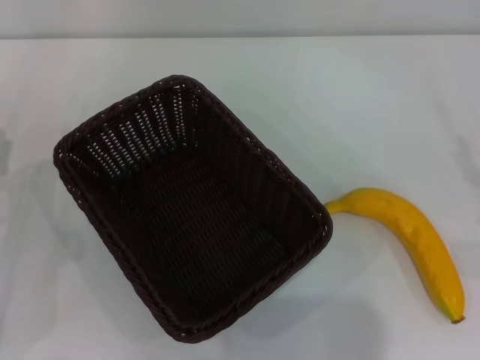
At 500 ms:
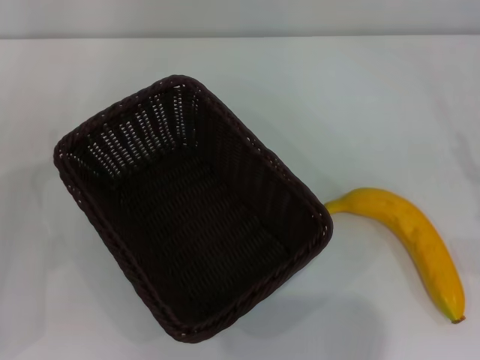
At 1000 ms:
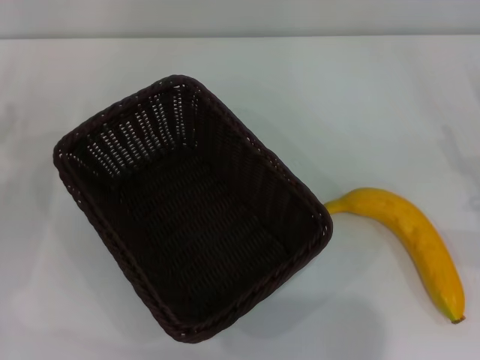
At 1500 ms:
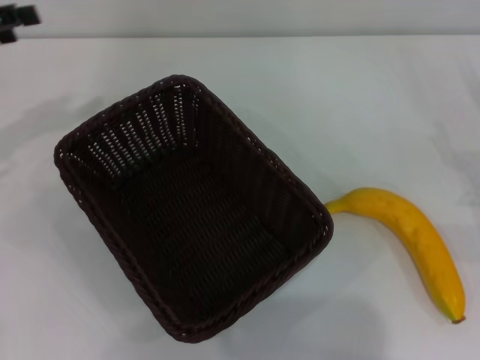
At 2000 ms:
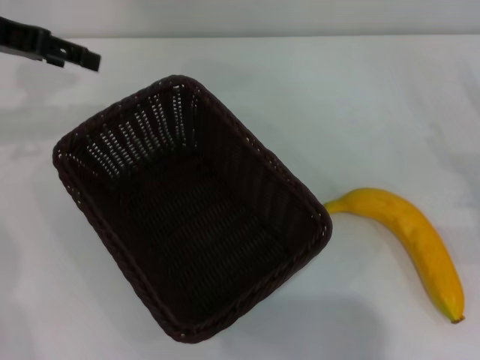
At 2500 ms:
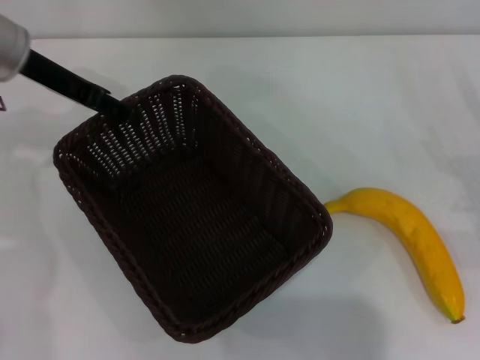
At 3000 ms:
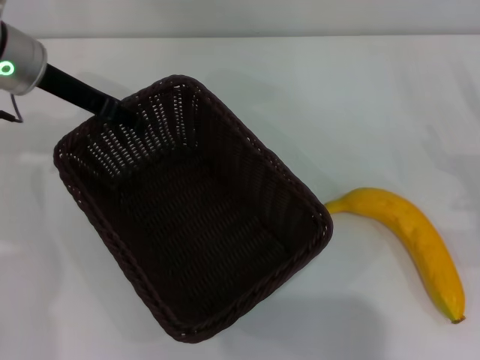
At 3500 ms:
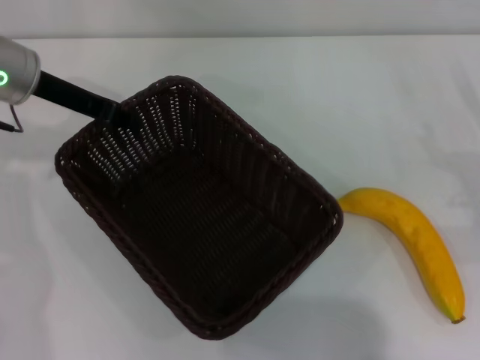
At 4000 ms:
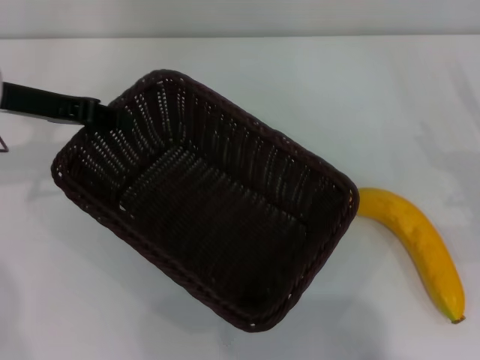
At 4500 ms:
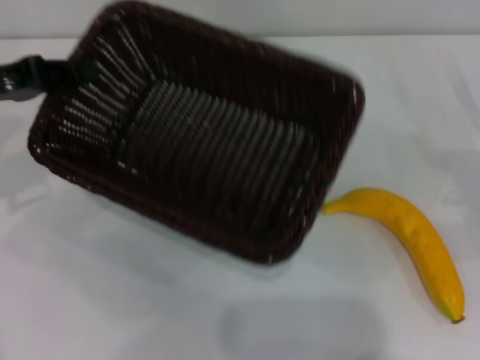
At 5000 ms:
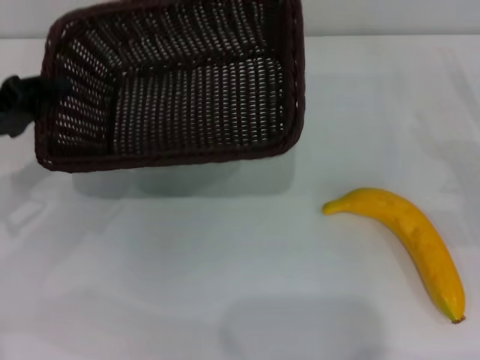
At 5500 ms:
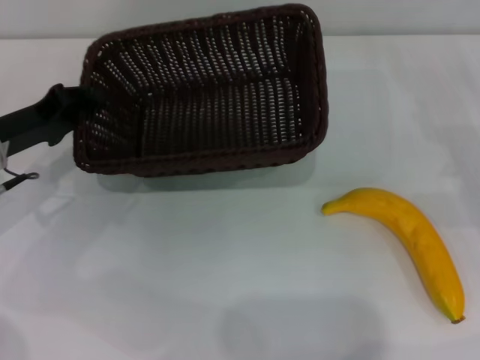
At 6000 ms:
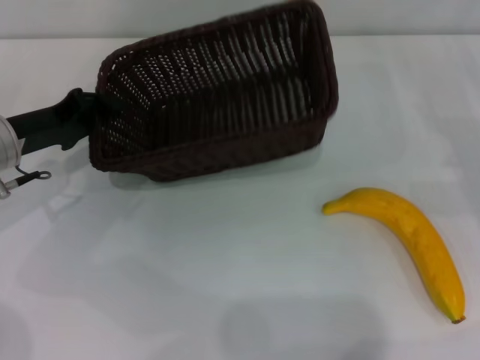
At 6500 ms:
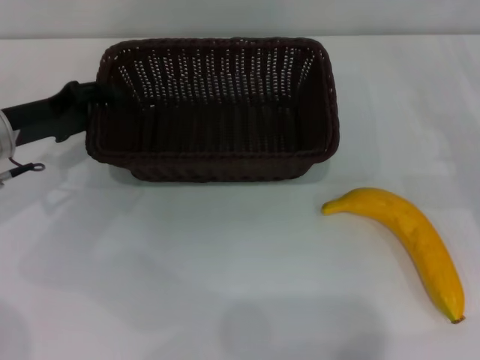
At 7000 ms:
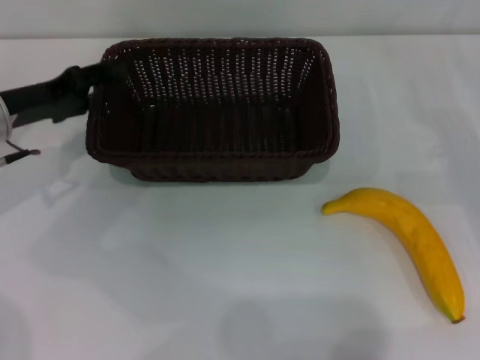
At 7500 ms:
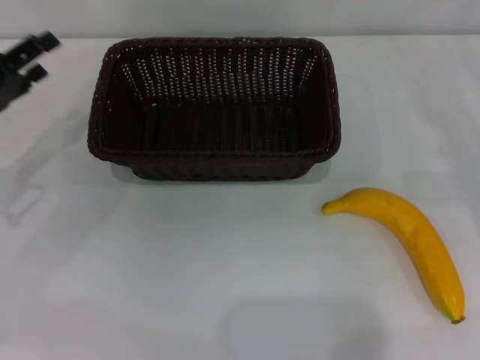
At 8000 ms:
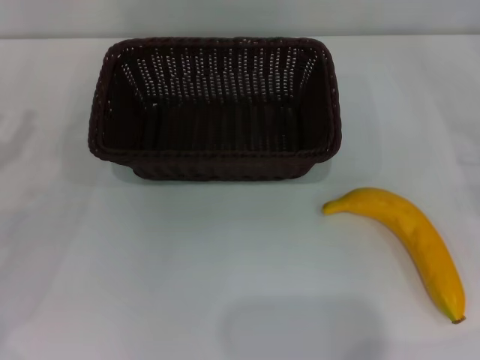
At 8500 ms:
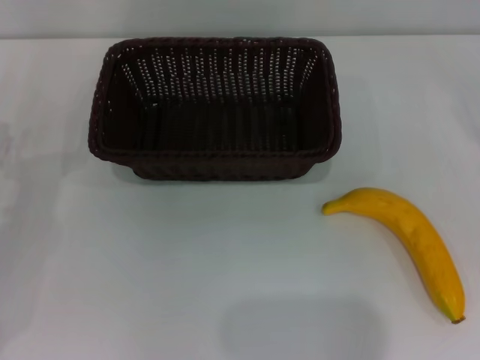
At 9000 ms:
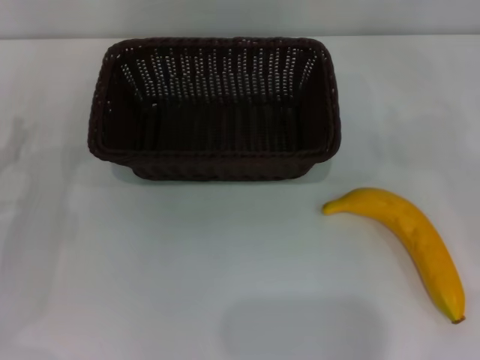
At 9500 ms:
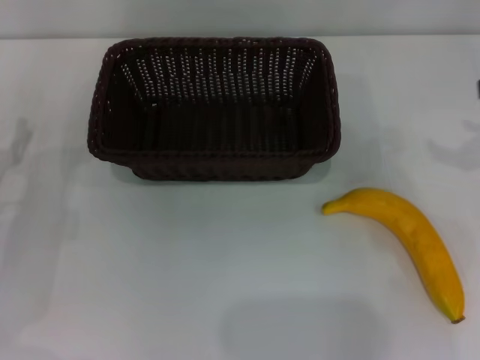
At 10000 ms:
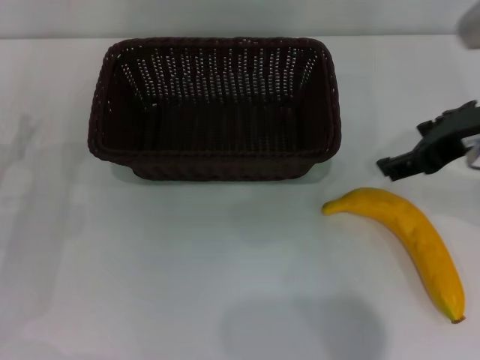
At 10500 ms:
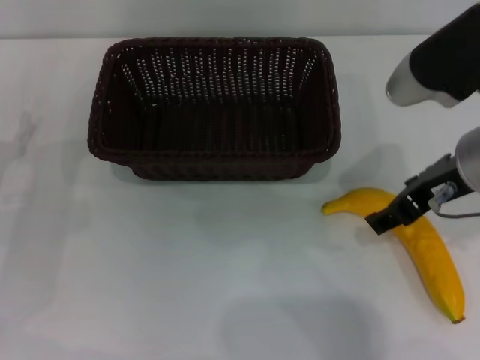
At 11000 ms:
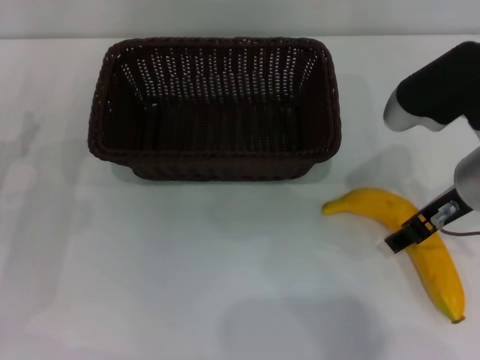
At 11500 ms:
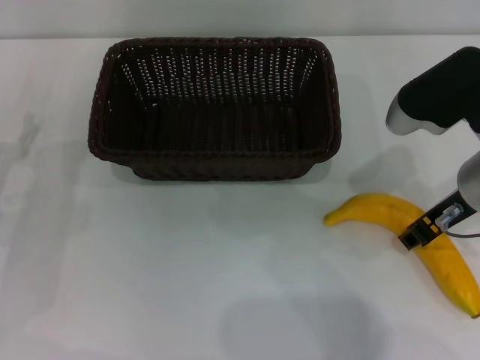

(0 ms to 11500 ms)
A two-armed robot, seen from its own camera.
Step, 0 ms - 4000 ms: Pick up the dark basket with the left gripper.
Step, 4500 ms - 7000 ms: Place the dark basket in the center of view with the left gripper.
0 ms - 2000 ms: The left gripper shifts approximately 25 cm upward and forward.
2000 ms - 4000 ms: The left gripper is displaced downward by approximately 10 cm, and closes its fingers.
4000 ms - 6000 ms: The right gripper shifts by approximately 5 cm. Meanwhile the left gripper goes approximately 10 cm downward.
6000 ms - 7500 ms: The left gripper changes place by about 5 cm, and opens.
7500 ms - 9500 ms: The left gripper moves downward, roughly 5 cm.
9500 ms - 11500 ms: The right gripper moves to the left and downward, roughly 15 cm, and closes.

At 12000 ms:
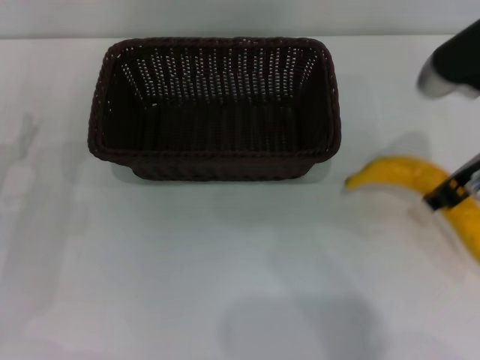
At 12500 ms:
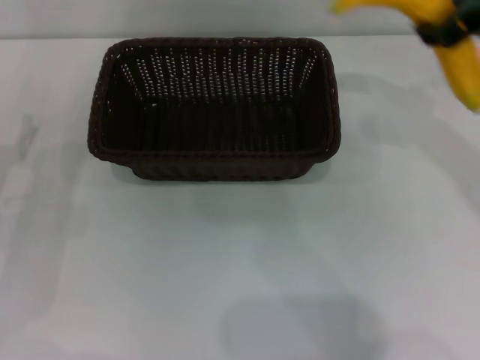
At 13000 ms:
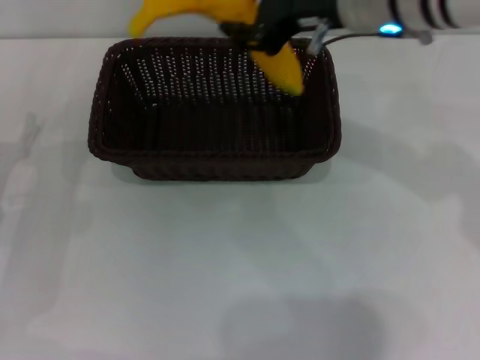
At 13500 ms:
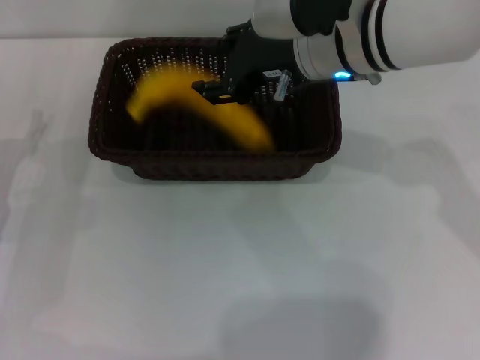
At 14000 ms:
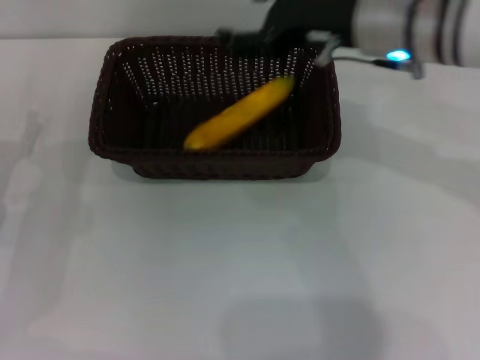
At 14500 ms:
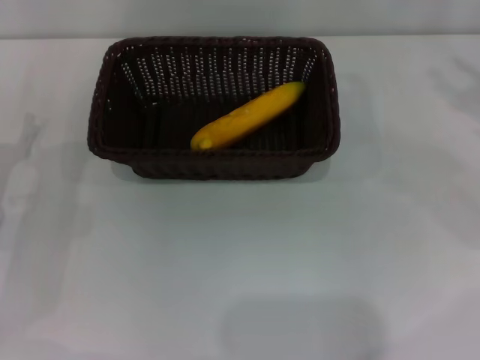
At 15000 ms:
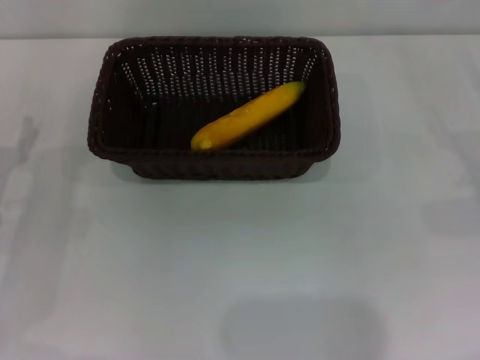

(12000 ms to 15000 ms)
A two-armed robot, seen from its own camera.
Step, 12500 ms - 13500 ms: Place the banana into the dark basket with the right gripper.
12000 ms - 13500 ms: The right gripper goes about 15 cm to the left and forward.
13500 ms - 15000 ms: The right gripper shifts some 35 cm to the right and downward, and opens its fingers.

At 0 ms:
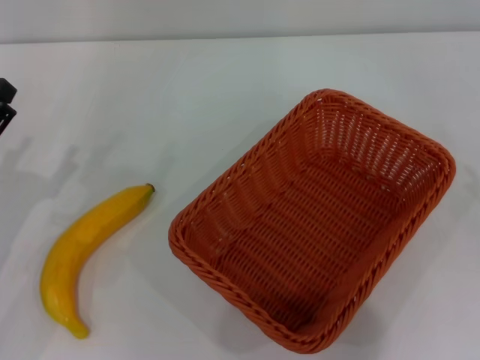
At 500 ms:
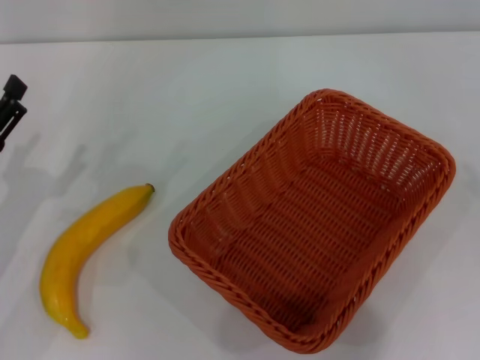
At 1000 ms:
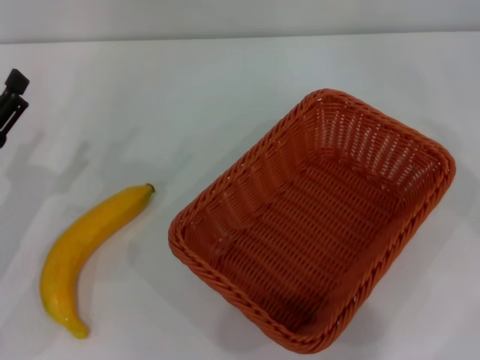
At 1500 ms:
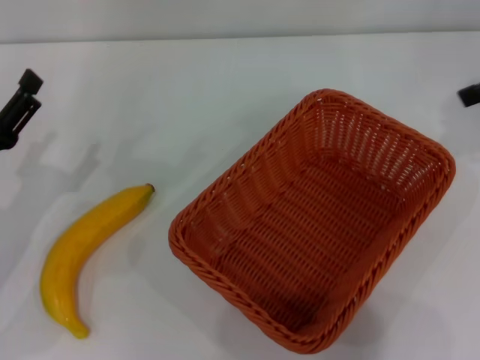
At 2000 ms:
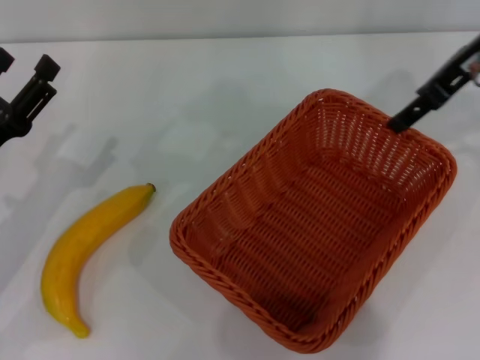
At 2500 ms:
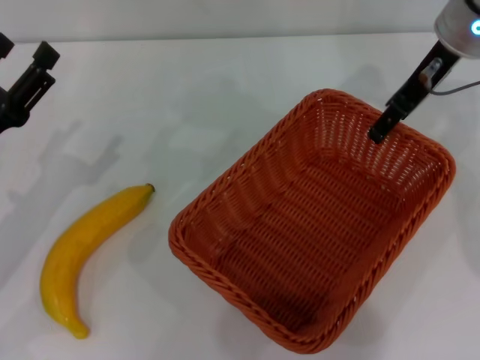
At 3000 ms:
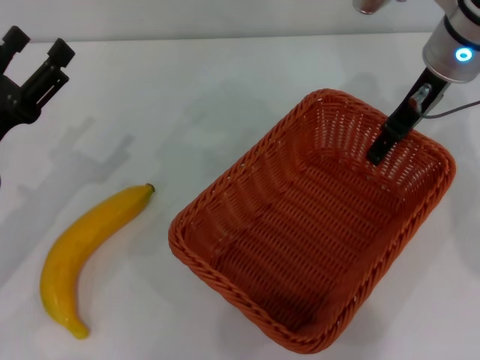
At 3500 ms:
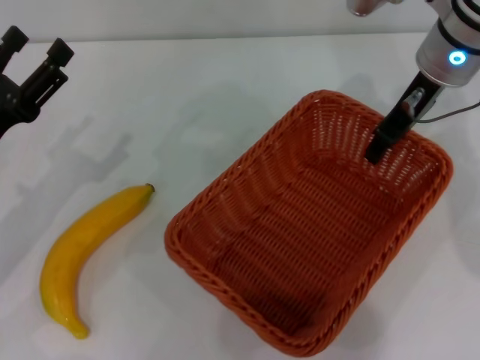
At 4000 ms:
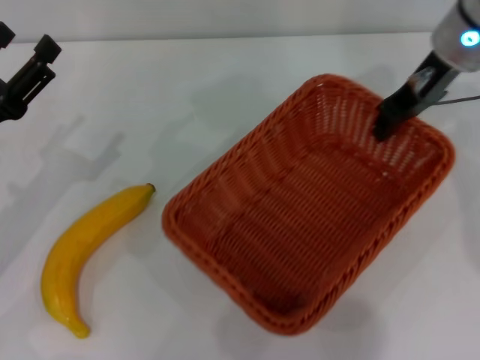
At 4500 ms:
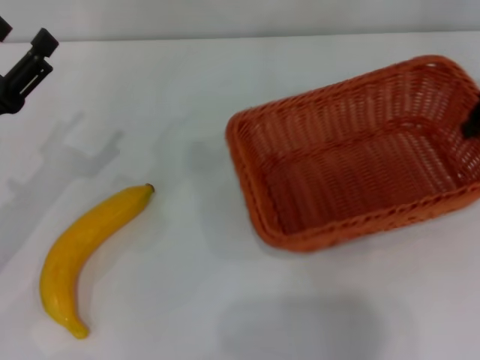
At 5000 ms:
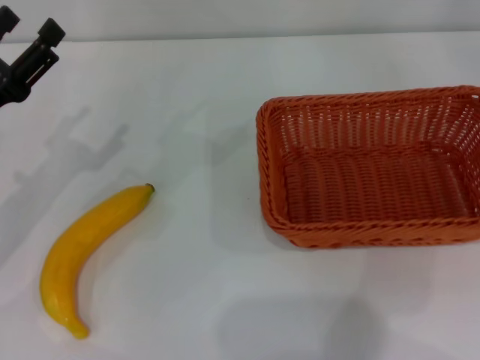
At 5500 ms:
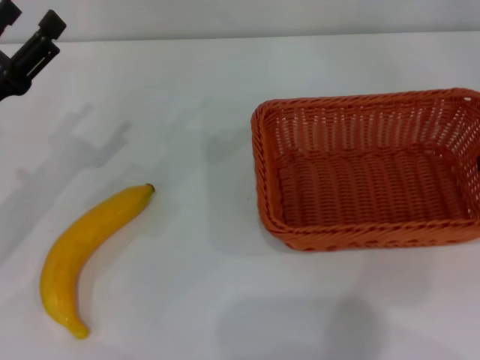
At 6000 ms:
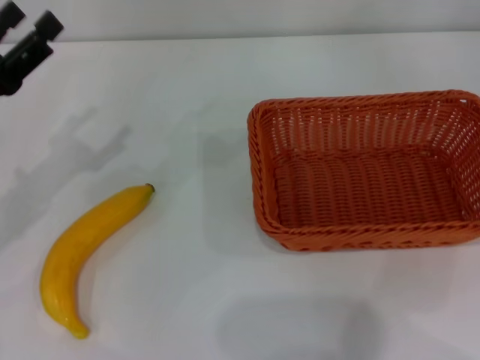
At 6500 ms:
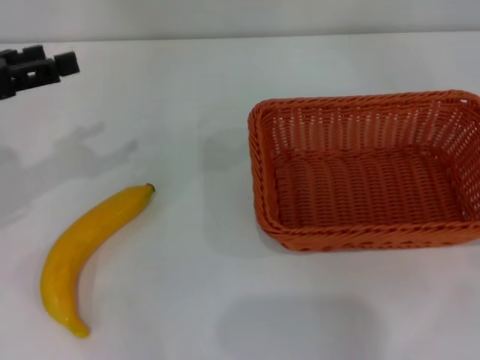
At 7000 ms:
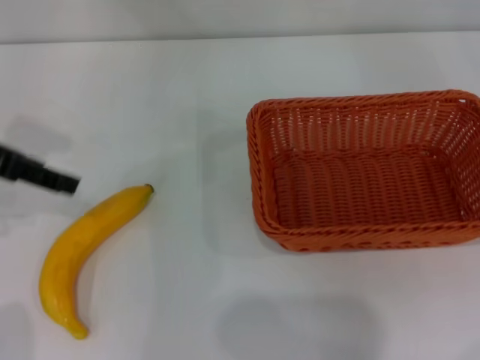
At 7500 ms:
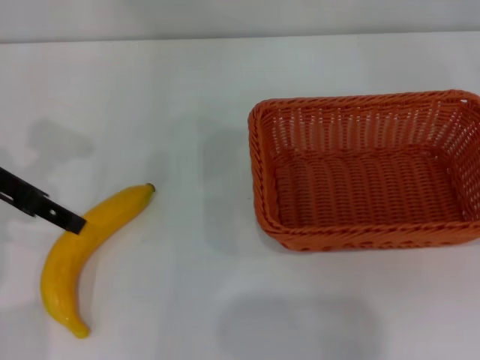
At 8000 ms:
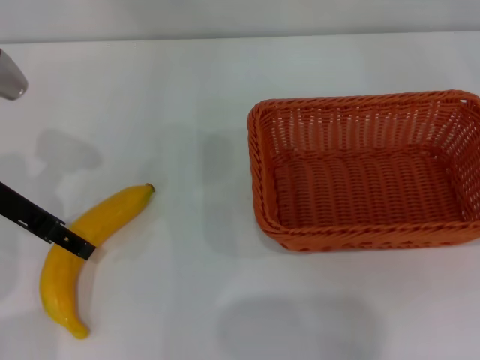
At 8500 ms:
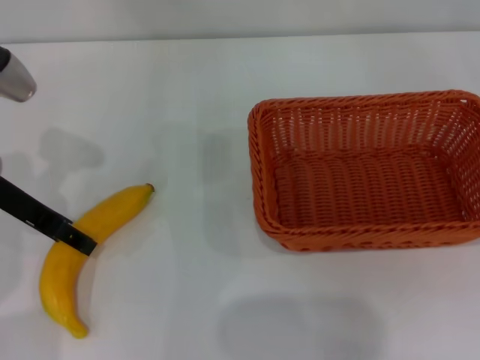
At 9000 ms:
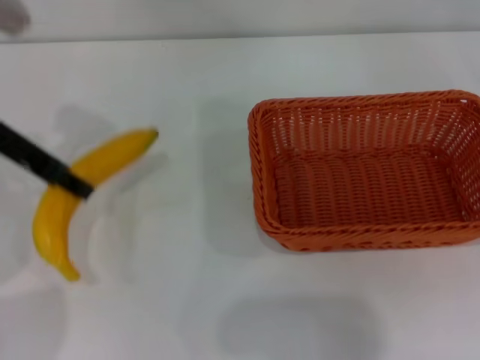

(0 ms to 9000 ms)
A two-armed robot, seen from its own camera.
Step, 0 ms - 4000 ms: Pick up the light basket with the right gripper.
Step, 4500 ms - 5500 ms: Place the light basket in the center of view with the right gripper.
0 ms - 2000 ms: The right gripper shifts roughly 35 cm to the left, forward and upward.
2000 ms - 4500 ms: The right gripper is displaced to the right by some 10 cm, and closes up.
4500 ms - 7000 ms: The left gripper is displaced upward by some 15 cm; the right gripper travels to the right and backward by approximately 20 cm, and opens.
7000 ms - 9000 ms: The left gripper goes some 5 cm to the right, travels downward and back again, approximately 10 cm each way, and closes its fingers.

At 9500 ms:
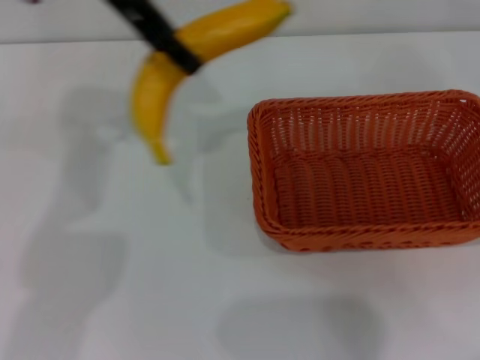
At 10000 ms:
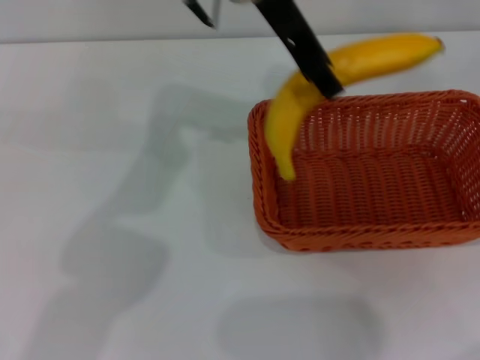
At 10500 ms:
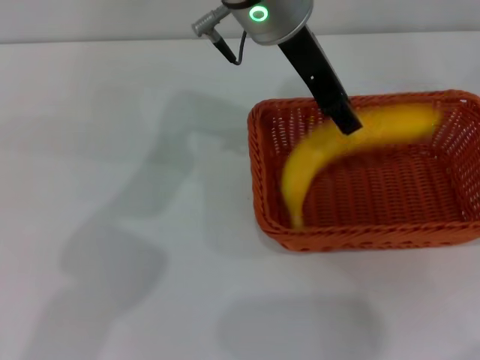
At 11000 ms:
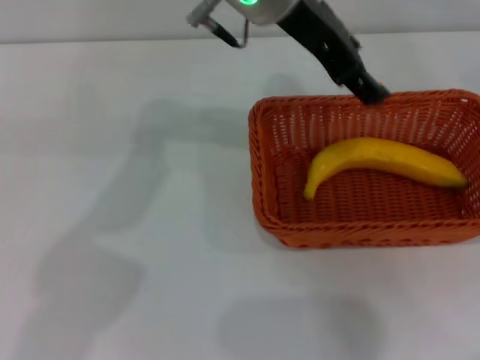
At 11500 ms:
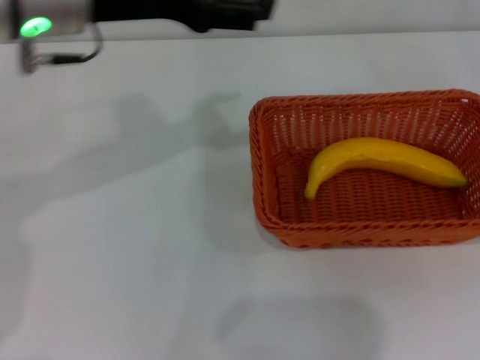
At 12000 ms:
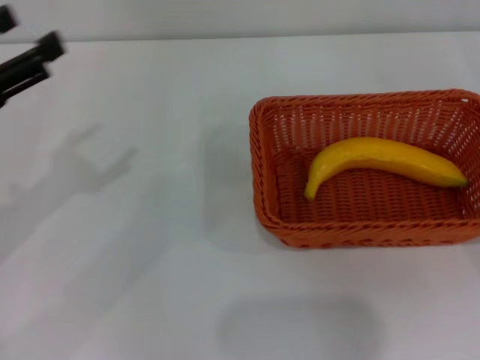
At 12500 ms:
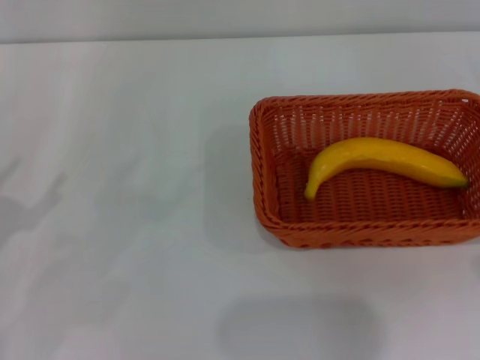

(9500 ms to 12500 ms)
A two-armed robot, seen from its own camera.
Step, 9500 ms - 10500 ms: Place the banana into the light basket with the left gripper.
9500 ms - 11000 ms: The left gripper shifts approximately 15 cm to the right and downward, and opens its fingers.
11000 ms - 12500 ms: The right gripper is displaced downward and backward by about 10 cm, while the left gripper goes roughly 40 cm to the left, backward and downward.
